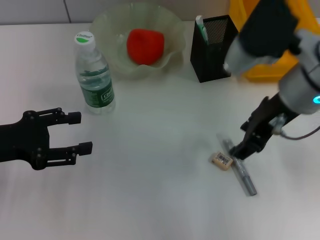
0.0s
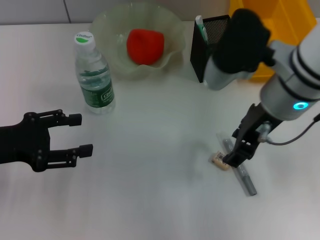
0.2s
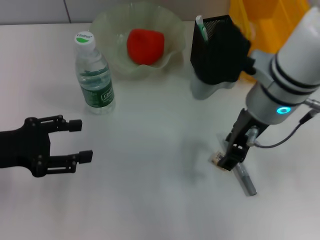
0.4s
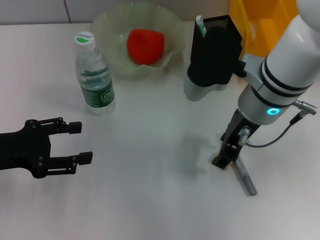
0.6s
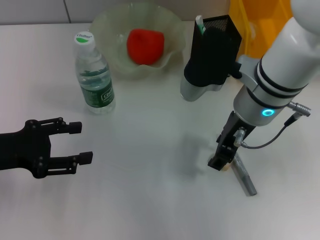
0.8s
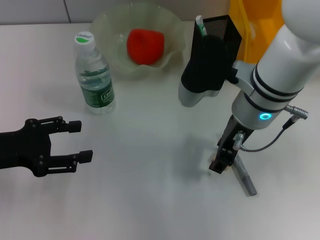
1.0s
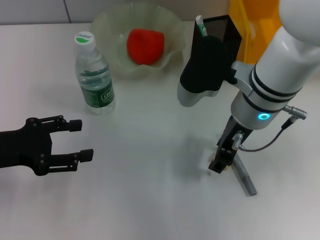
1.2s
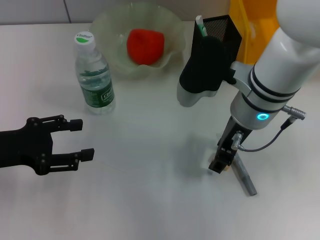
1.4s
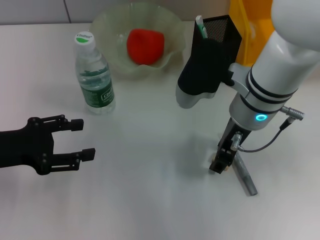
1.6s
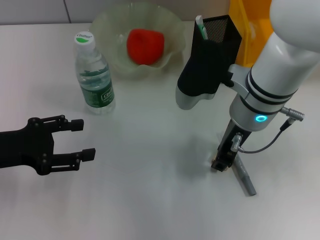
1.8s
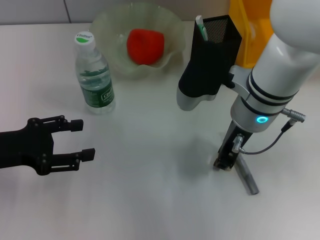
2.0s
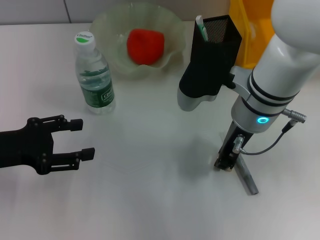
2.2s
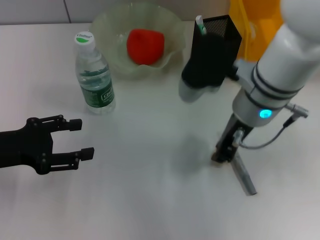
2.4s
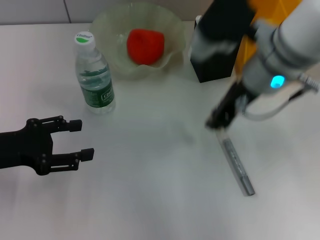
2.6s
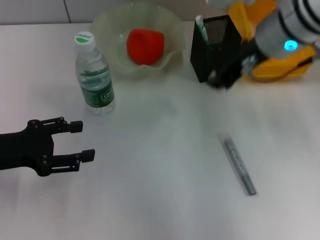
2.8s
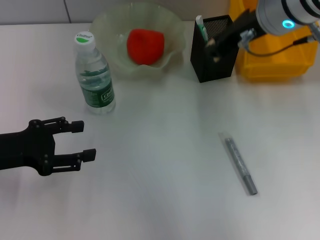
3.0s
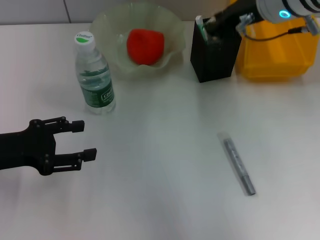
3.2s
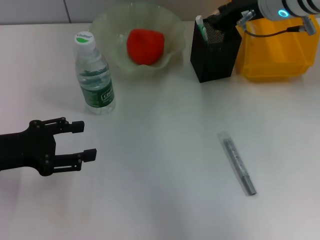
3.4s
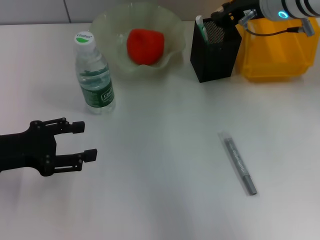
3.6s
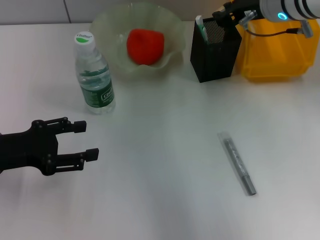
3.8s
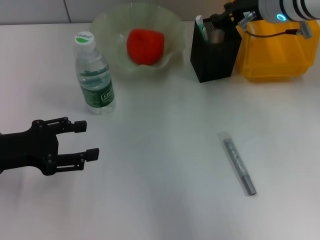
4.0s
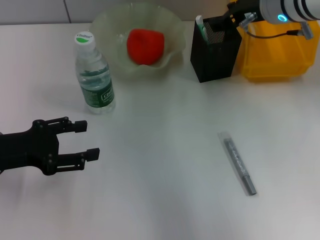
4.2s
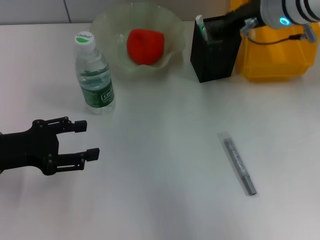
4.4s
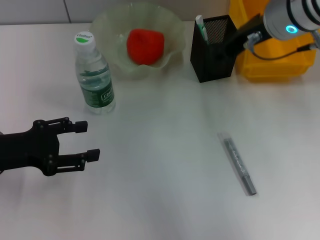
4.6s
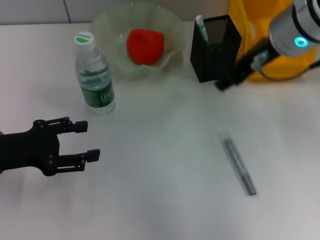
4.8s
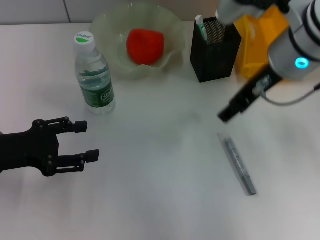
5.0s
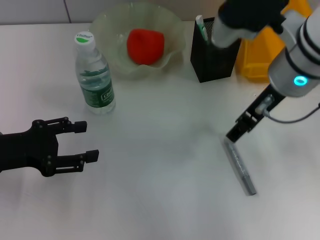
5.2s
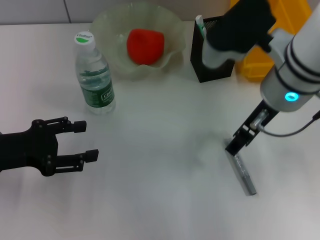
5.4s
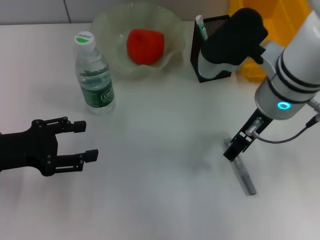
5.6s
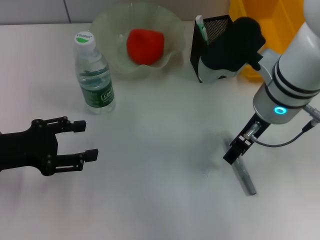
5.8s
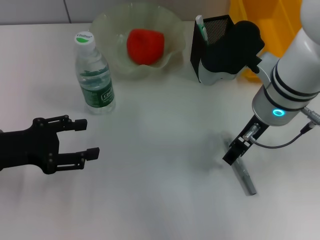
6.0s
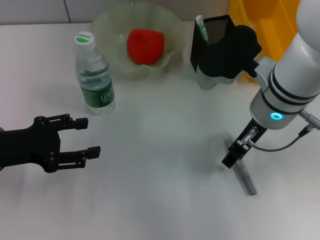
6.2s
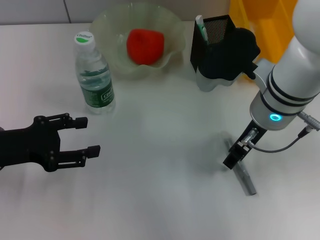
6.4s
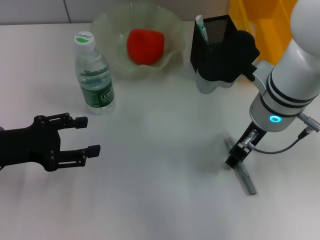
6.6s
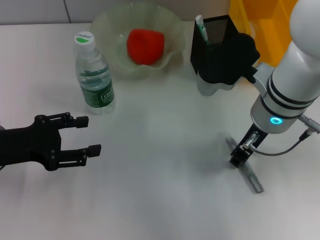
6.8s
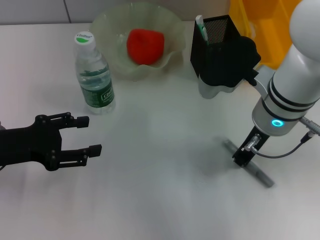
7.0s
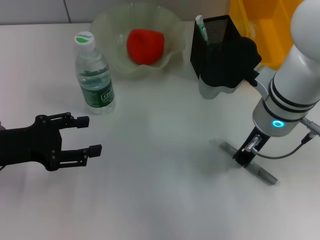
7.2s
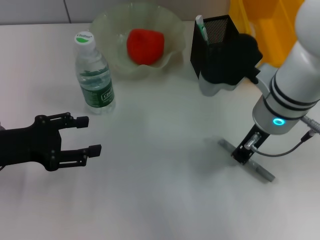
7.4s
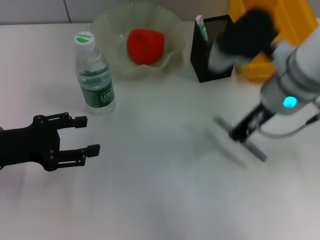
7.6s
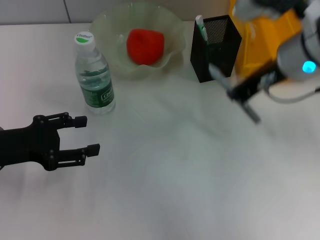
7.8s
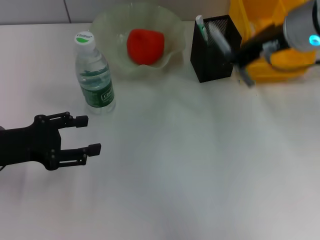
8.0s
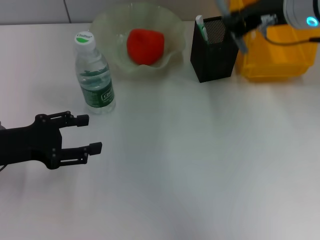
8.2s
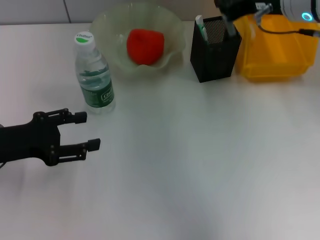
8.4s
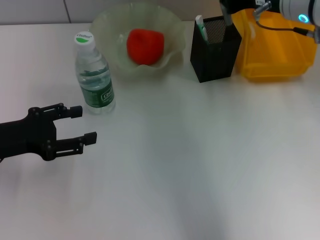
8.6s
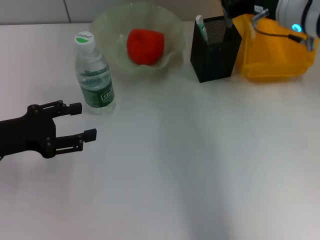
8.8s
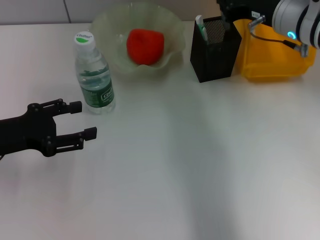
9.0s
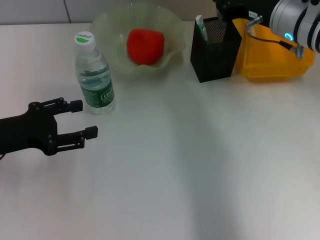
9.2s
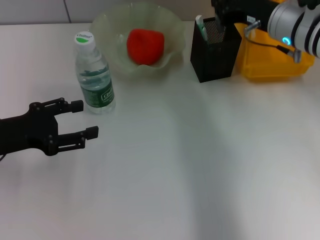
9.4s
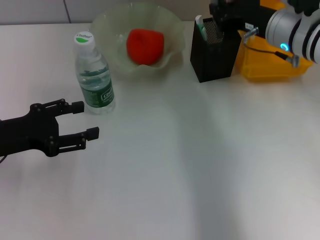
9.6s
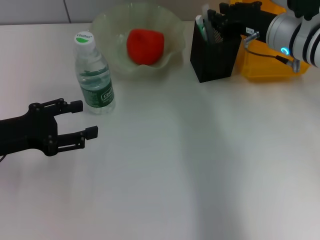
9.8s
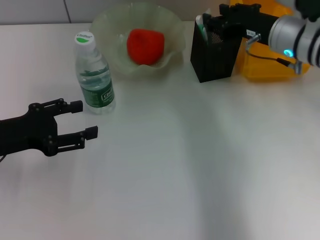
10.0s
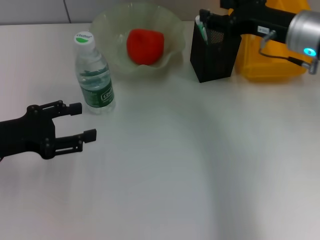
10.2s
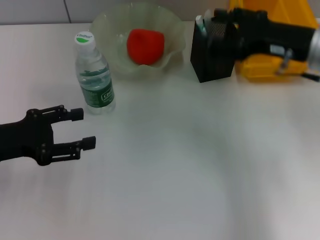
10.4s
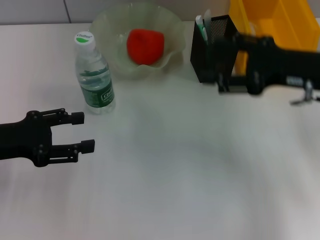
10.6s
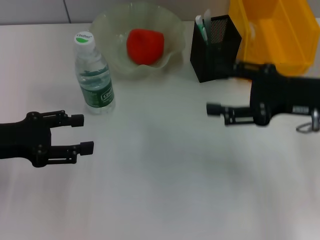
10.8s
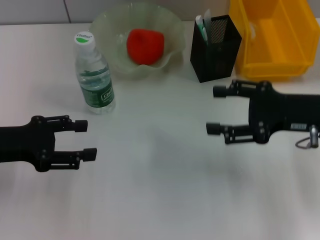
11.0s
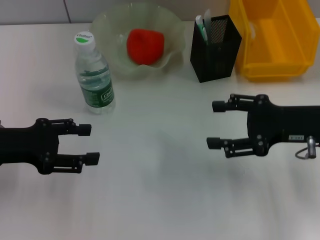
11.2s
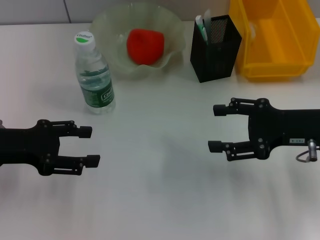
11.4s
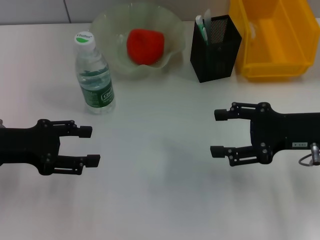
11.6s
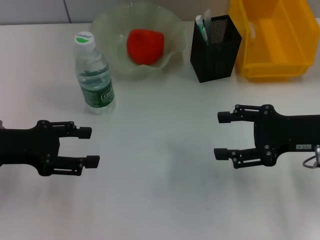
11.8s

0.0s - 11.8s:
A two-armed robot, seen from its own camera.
Step, 0.0s - 2.2s: Grab the eraser with the right hand.
Step, 2.4s - 4.2s: Put the eraser into the pen holder with the right hand.
Step, 4.4s - 7.2s: Grab the gray glue with the right hand.
Step, 7.4s - 9.8s: Place the gray glue into the pen holder with the right hand.
0.0s - 1.4s: The right gripper travels downward by approximately 5 cm.
1.4s - 3.0s: The right gripper is displaced upward by some 10 cm, and closes.
3.0s - 4.4s: The grippers stay close to where they were, moving slightly.
4.4s - 6.0s: The right gripper moves backward, approximately 10 cm, and opens its fingers.
6.0s - 7.4s: The right gripper closes its fingers.
7.4s - 8.8s: The right gripper travels forward and to the right by approximately 10 cm.
8.8s - 10.4s: The right gripper shifts some 5 cm backward, and opens its fingers.
10.4s - 11.8s: The right gripper goes approximately 10 cm backward and downward.

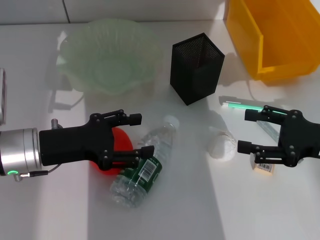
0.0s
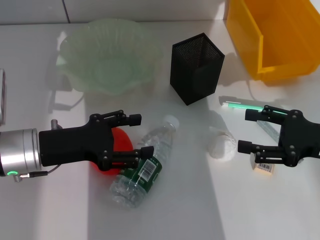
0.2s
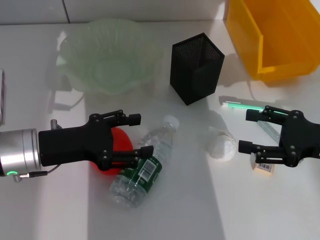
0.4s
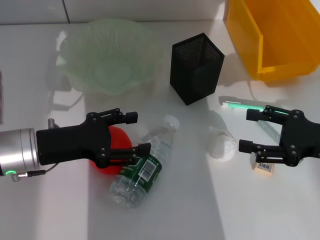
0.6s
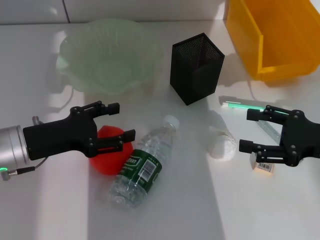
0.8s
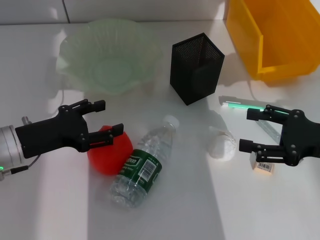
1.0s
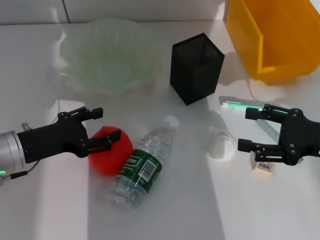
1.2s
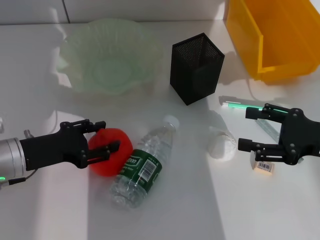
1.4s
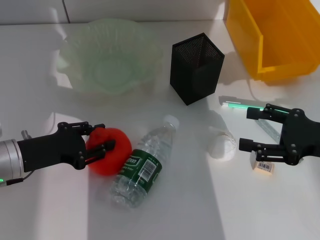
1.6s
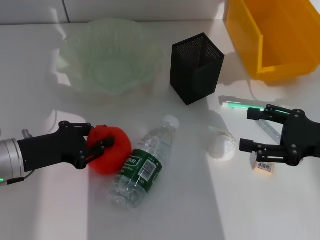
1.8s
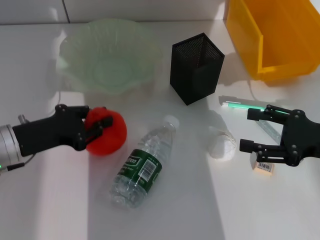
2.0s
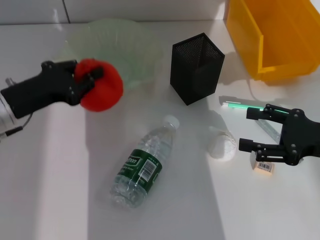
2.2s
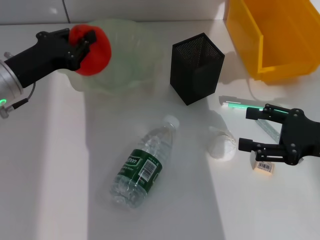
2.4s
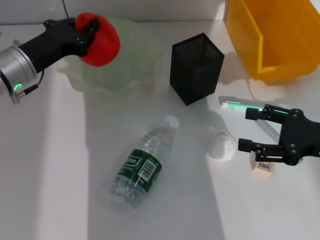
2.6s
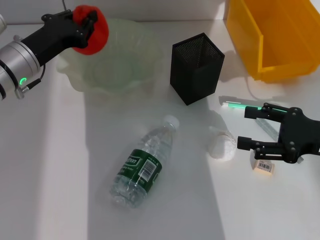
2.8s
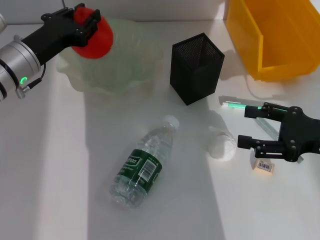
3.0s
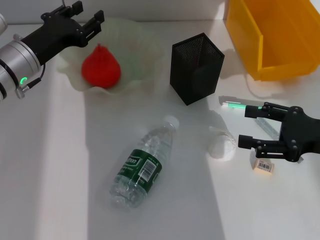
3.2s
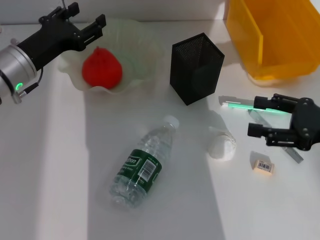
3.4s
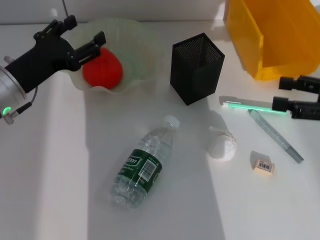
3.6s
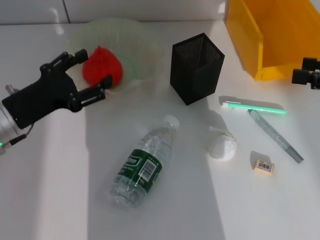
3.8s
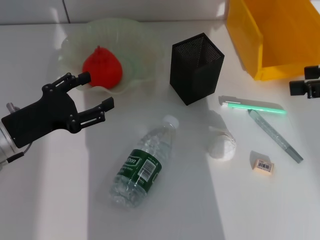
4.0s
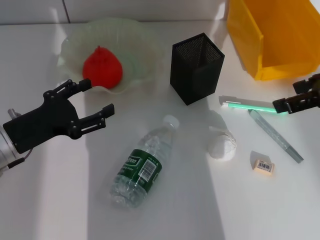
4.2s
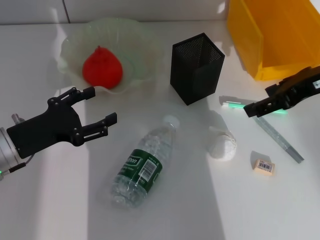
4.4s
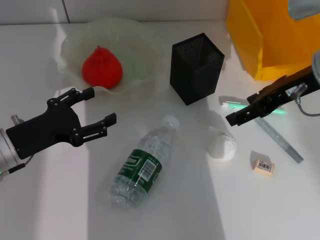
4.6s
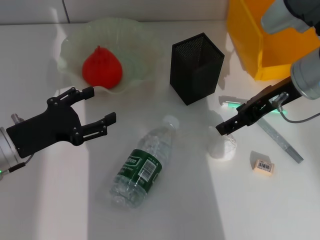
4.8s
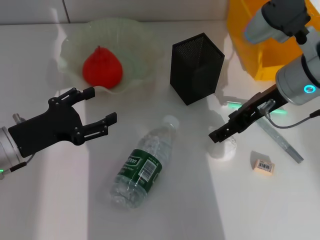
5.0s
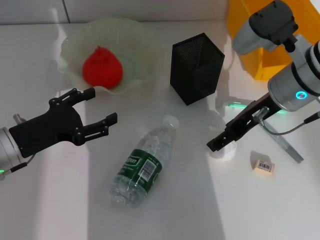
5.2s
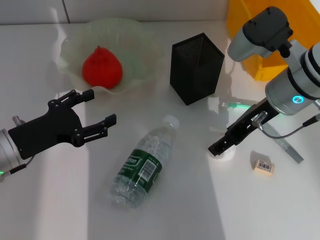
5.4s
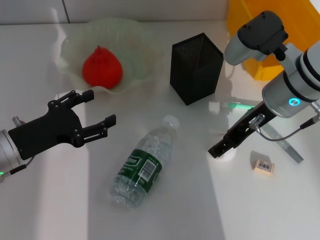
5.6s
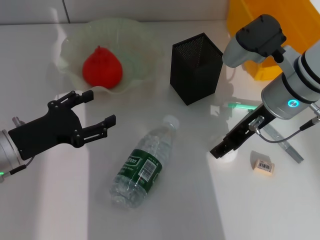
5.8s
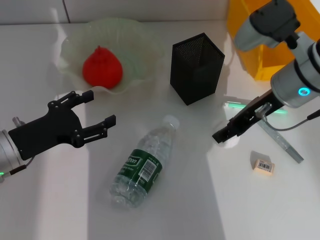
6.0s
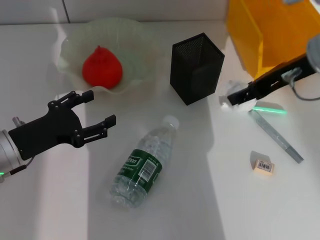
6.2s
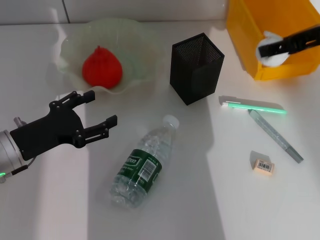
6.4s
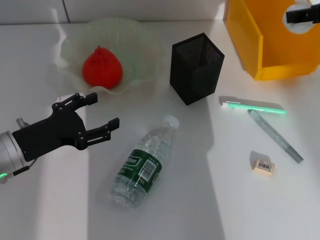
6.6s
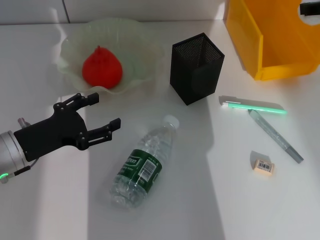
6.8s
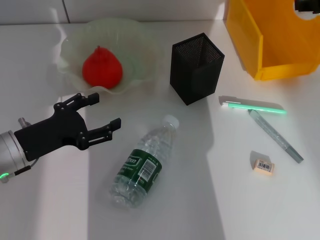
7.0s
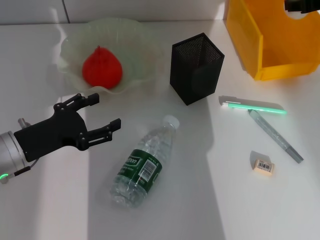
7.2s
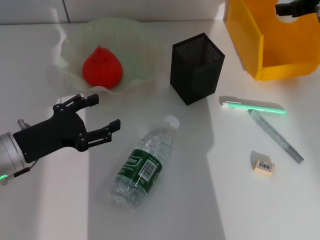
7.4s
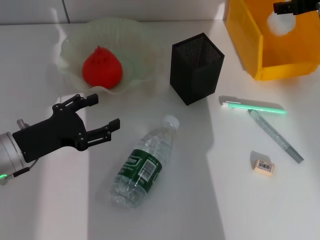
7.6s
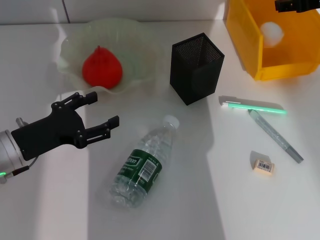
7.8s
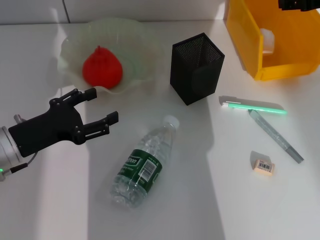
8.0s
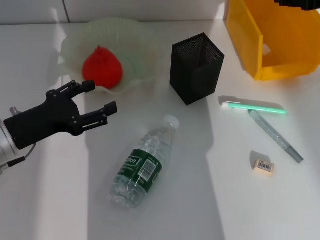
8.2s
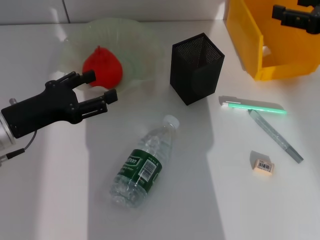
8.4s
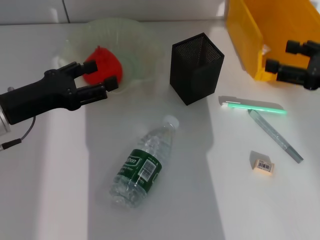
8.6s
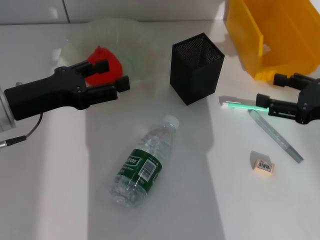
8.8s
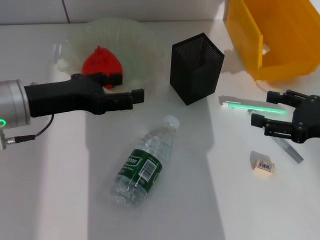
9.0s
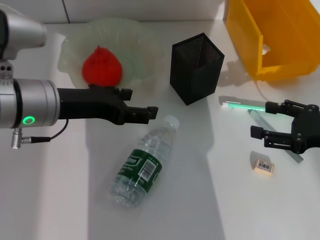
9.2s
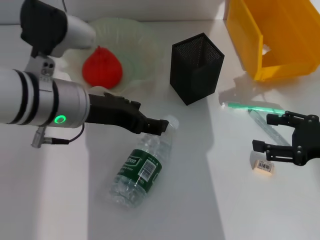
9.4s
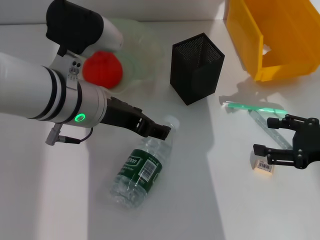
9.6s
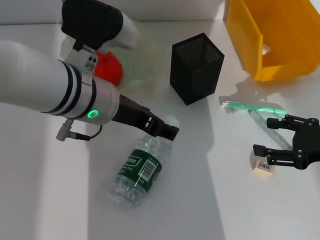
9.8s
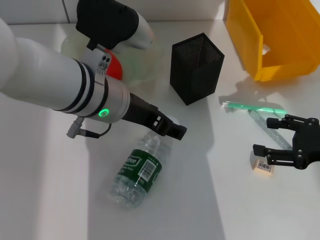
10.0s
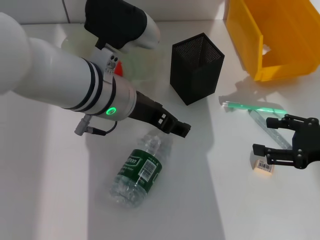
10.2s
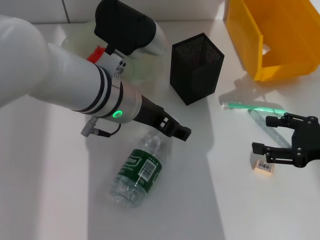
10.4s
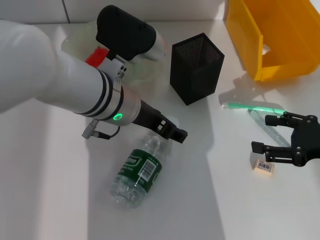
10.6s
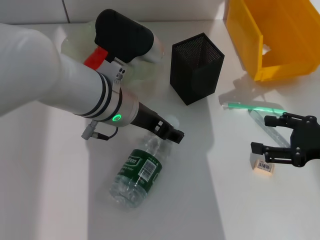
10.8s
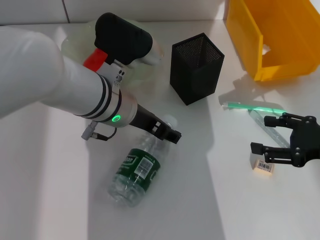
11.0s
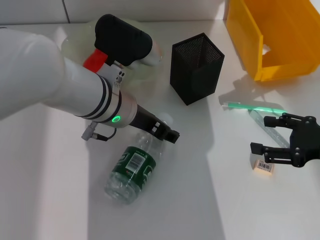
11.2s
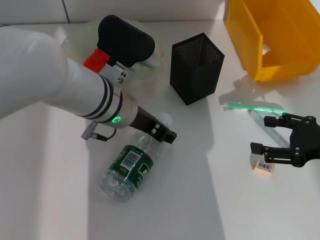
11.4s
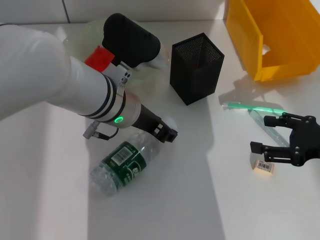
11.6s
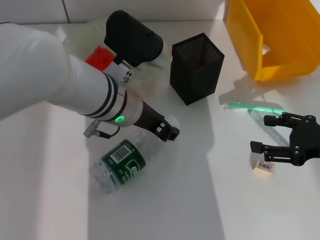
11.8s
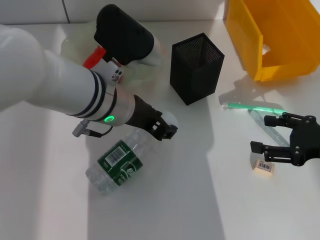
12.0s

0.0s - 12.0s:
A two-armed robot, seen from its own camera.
Step, 0.0s - 1.4s: Grab the orange with the left hand.
Step, 1.6s - 3.4s: Place the orange into the fruit bowl with the left hand.
Step, 3.6s - 5.2s: Grab the paper ball with the right hand.
Step, 5.4s - 8.2s: Place the paper ball into the trash can with the right hand.
Step, 8.4s - 11.6s: Grab the water bottle with the left hand.
0.0s - 1.6s: The grippers stay close to where they were, moving slightly.
1.6s - 3.0s: The left gripper heads forward and upward, covering about 10 cm, and closes up.
3.0s - 4.4s: The right gripper shifts some 15 cm upward, forward and to the left; the left gripper goes roughly 10 cm backward, and opens up.
4.4s - 6.0s: The right gripper shifts about 10 cm to the left and downward.
6.0s - 7.6s: The right gripper travels to the right and forward by about 15 cm.
7.6s - 9.0s: The left gripper heads upward, covering about 10 cm. The right gripper moves backward and downward, roughly 20 cm.
9.0s - 10.4s: The left gripper is displaced to the right by roughly 15 cm.
10.4s - 12.0s: The left gripper closes.
